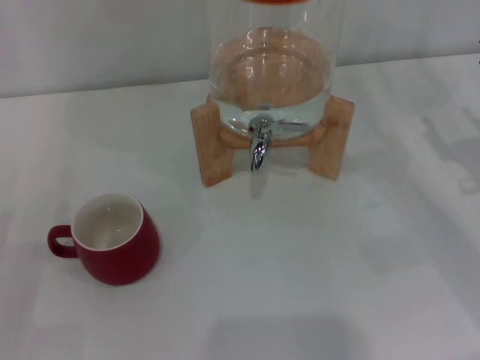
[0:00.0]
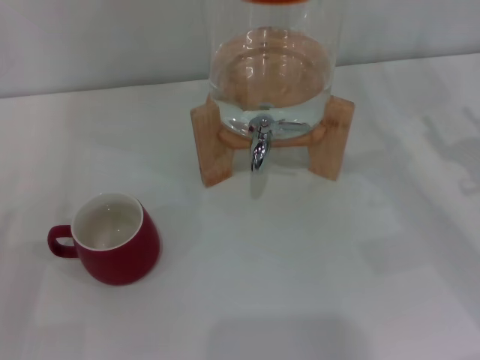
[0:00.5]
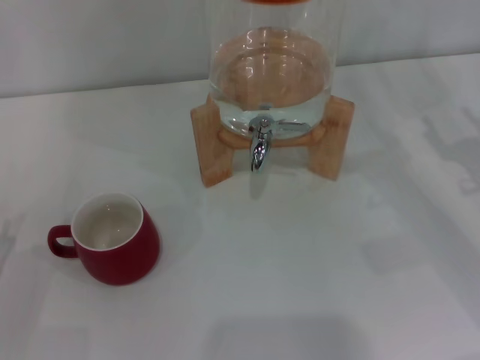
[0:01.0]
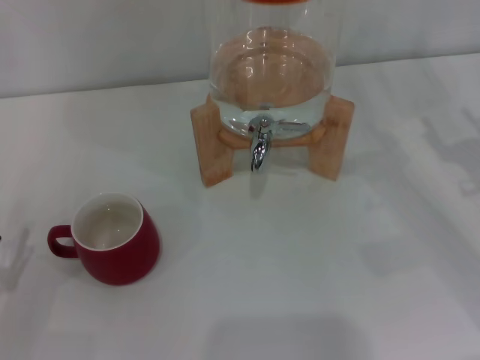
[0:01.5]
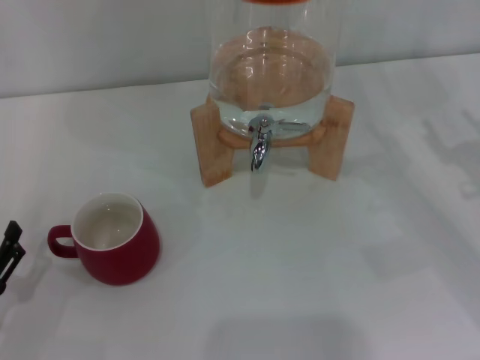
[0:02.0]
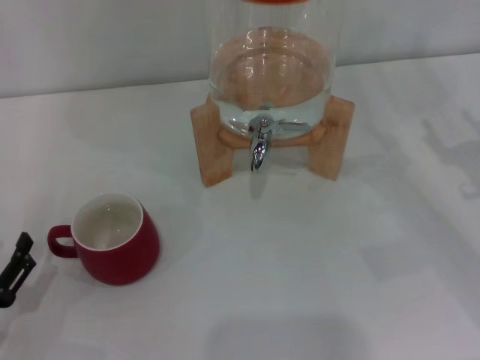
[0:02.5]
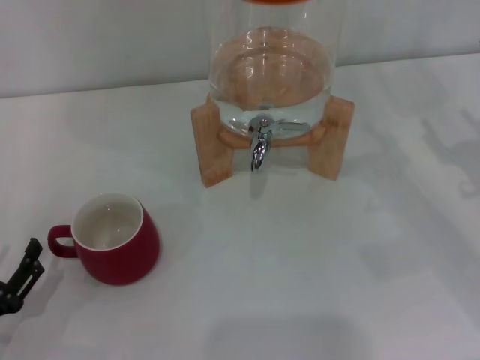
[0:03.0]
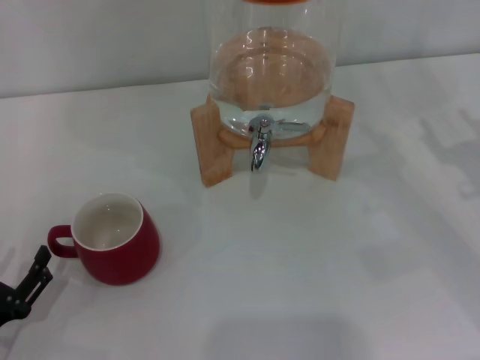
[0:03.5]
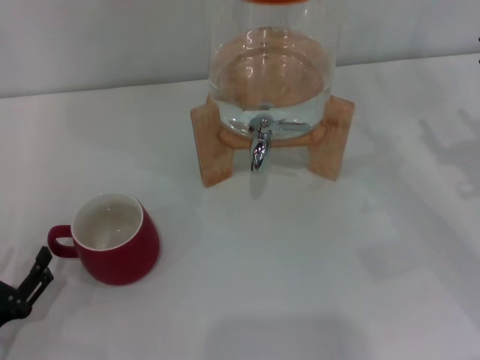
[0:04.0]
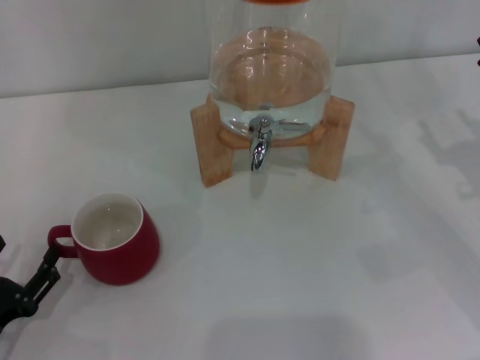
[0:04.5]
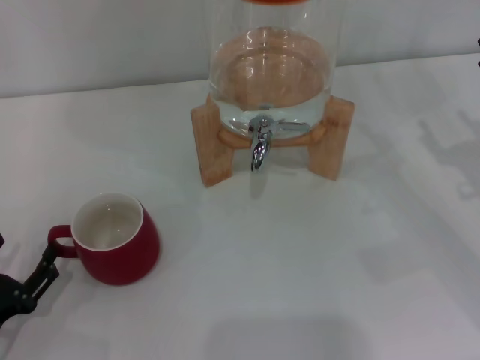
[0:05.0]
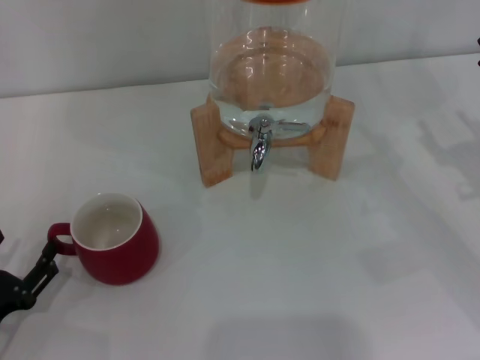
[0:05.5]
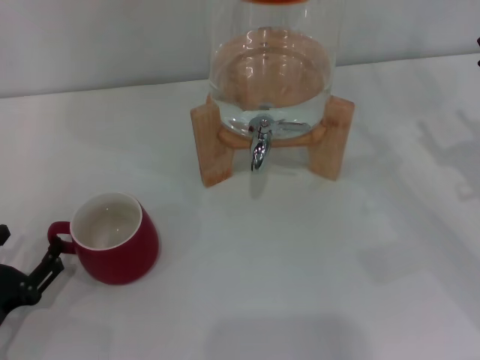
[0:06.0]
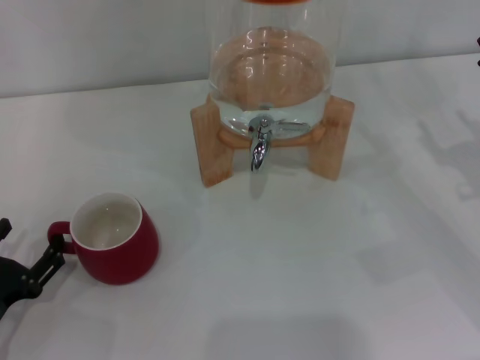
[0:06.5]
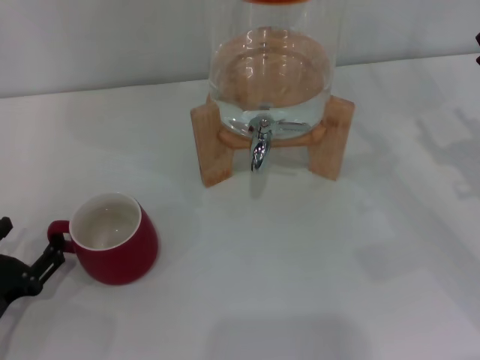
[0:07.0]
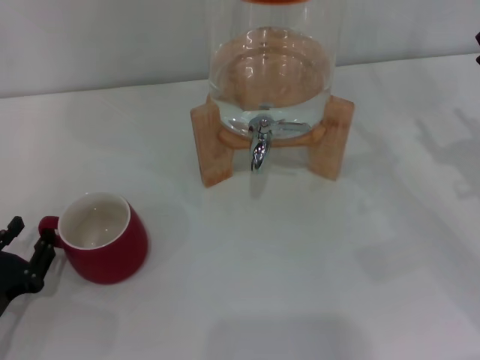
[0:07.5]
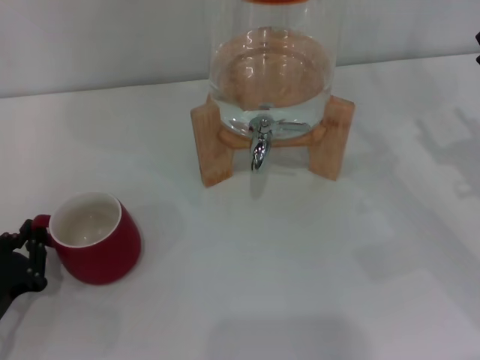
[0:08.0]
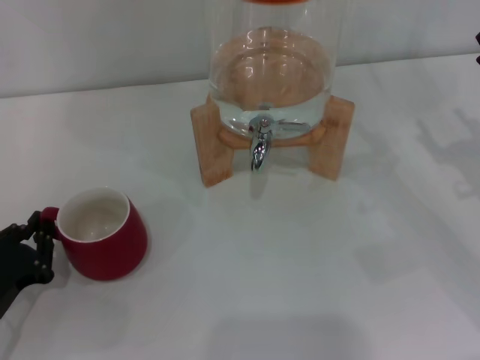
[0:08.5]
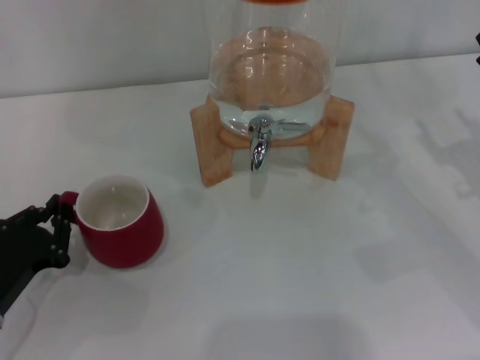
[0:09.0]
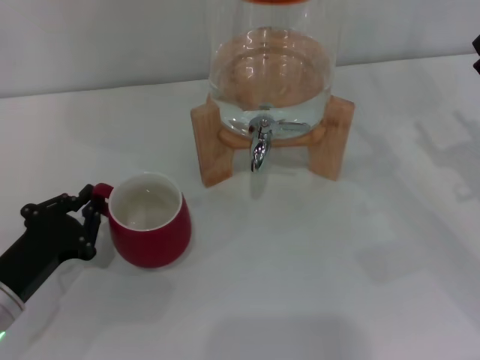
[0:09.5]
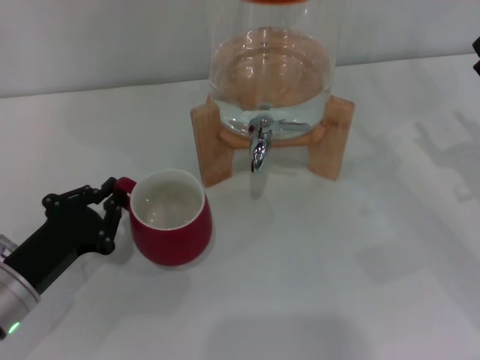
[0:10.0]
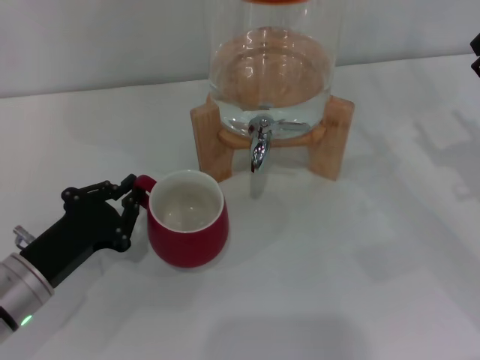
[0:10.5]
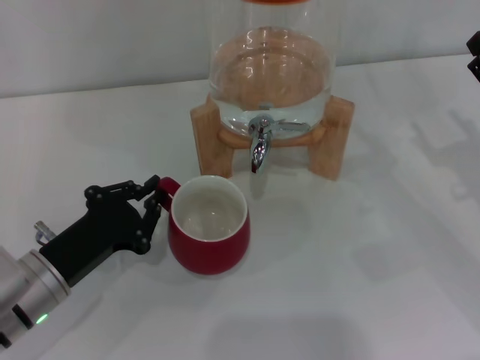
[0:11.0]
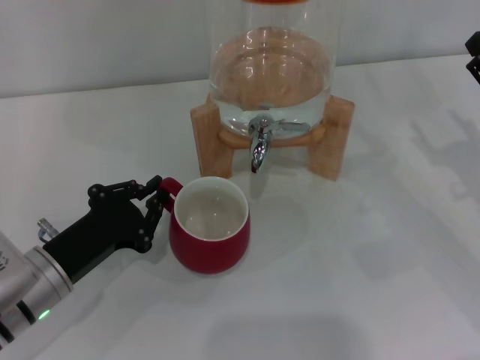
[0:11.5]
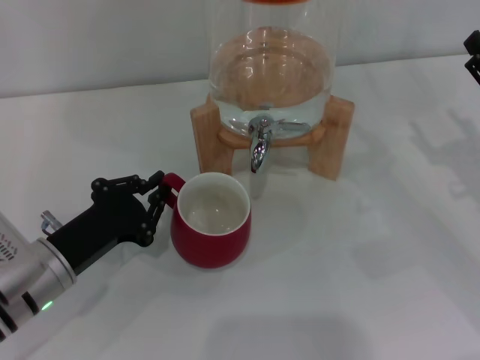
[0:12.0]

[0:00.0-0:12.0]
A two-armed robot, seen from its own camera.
Task of the whole recording: the left gripper pick up the red cup and place it horizontally under the faucet, the right gripper turn on the faucet to fill the cup, and then turn off the faucet.
0:02.0 to 0:06.0: The grippers stay close to where they were, moving slightly.
0:06.0 to 0:08.0: The left gripper closes.
0:08.0 to 0:10.0: The left gripper shifts roughly 5 cm to the right.
0:10.0 to 0:12.0: The grippers stay close to where they were, moving slightly.

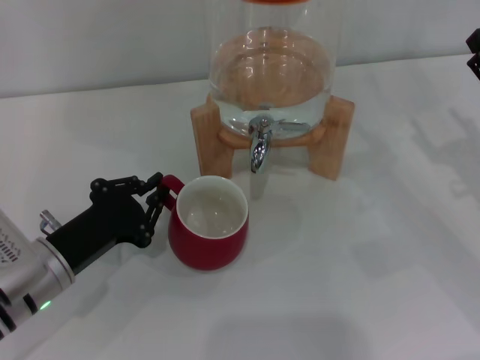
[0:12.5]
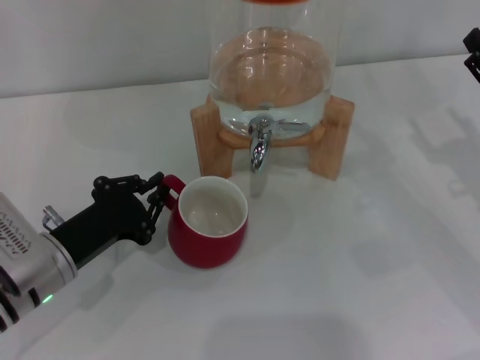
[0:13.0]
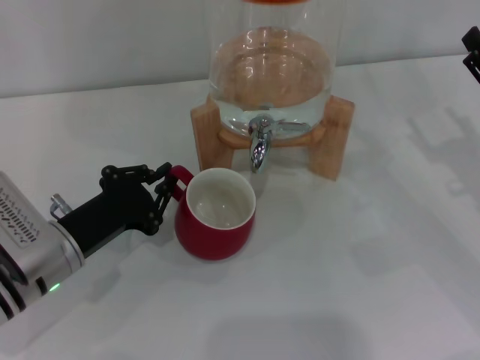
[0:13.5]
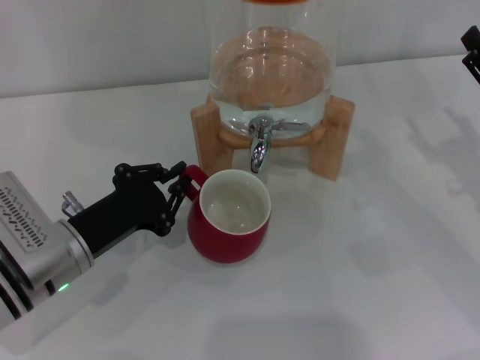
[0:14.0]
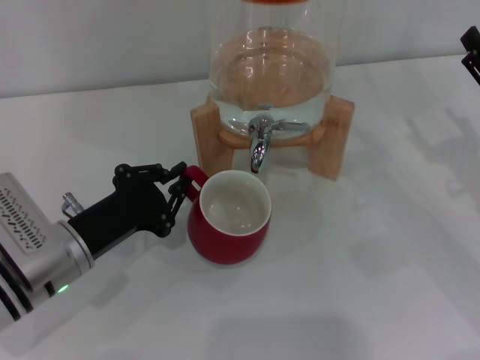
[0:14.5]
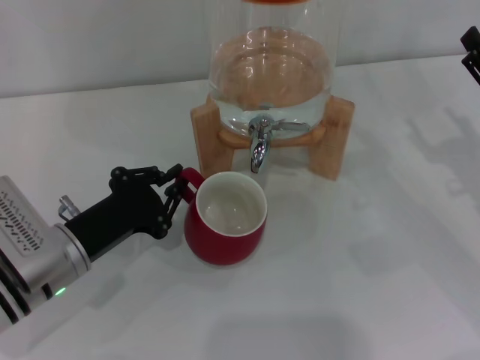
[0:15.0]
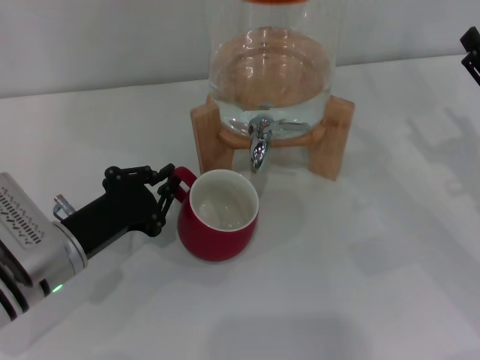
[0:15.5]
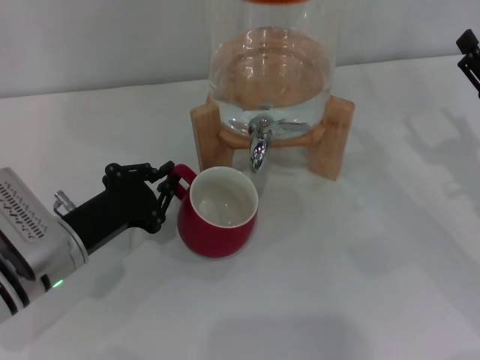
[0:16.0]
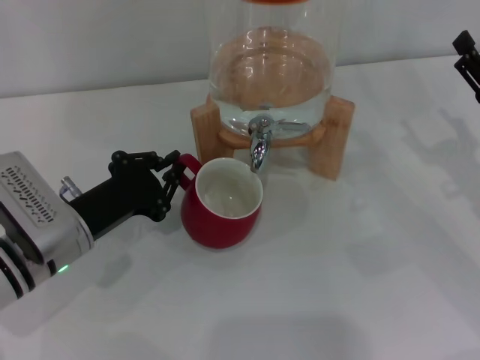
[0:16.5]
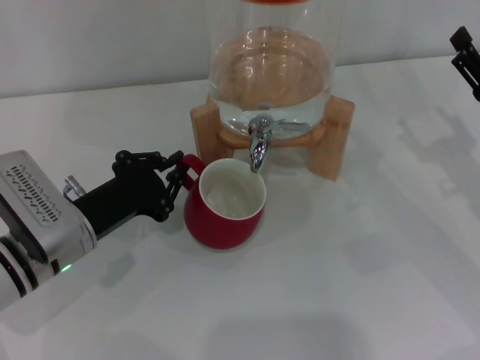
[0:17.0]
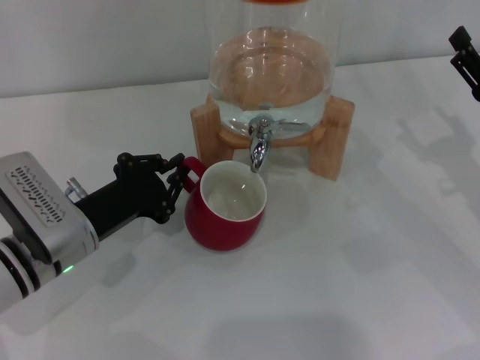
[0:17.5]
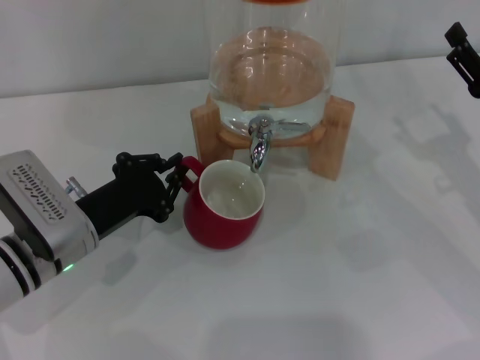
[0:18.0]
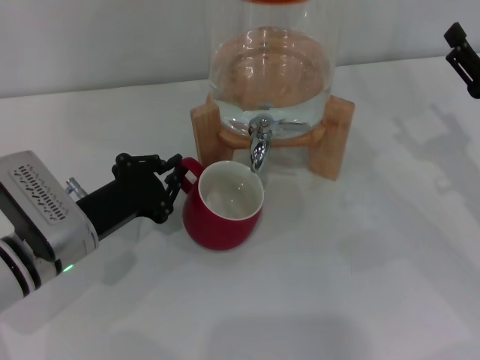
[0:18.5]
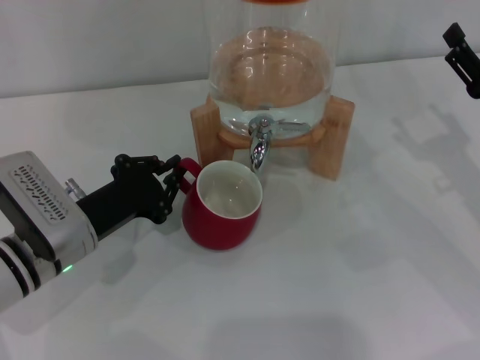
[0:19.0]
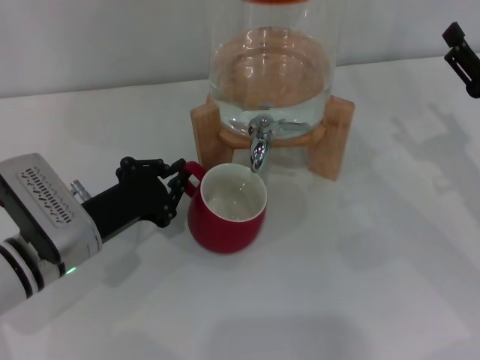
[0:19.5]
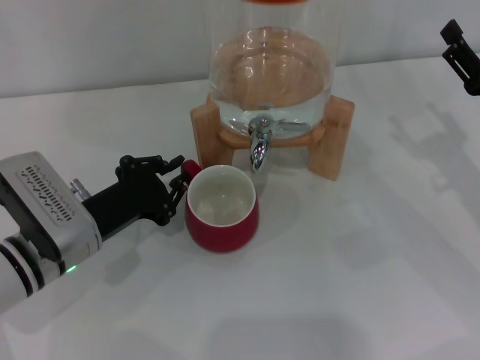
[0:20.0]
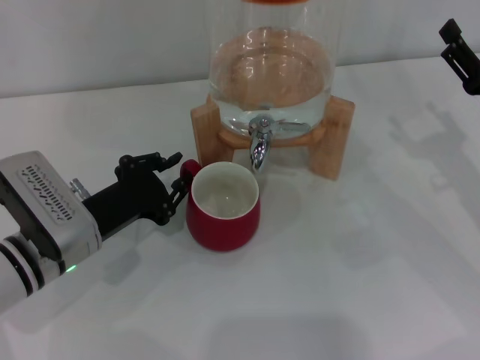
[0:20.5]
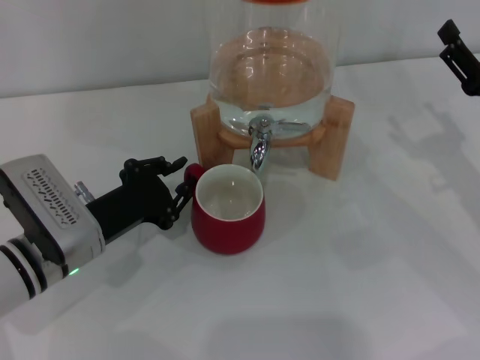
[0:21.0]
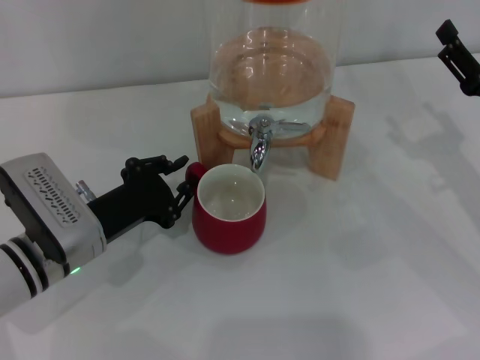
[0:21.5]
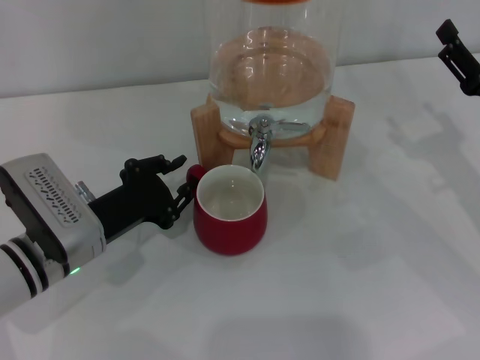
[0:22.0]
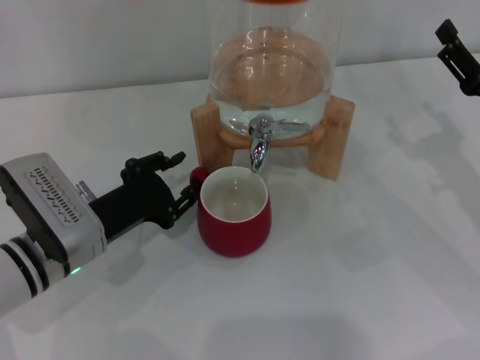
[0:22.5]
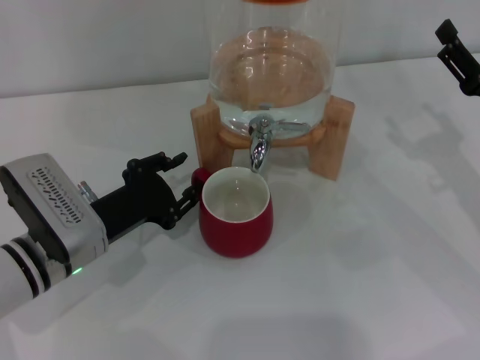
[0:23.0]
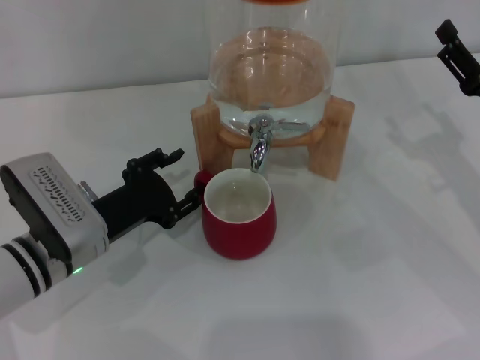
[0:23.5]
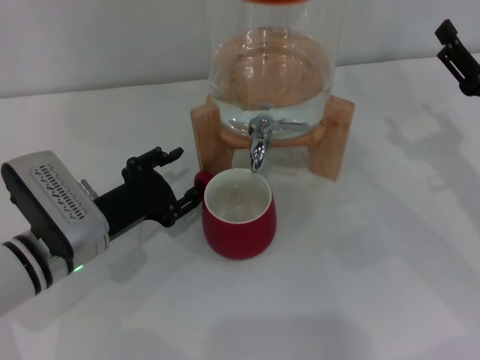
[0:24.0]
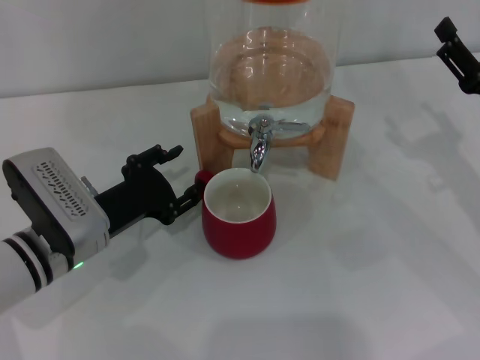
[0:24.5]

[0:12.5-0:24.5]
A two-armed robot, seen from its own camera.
Task of the whole recording: the left gripper pick up the red cup and place it horizontally under the faucet, the right gripper turn on the faucet to fill the cup, and then turn off the faucet.
0:12.5 to 0:16.5: The grippers move only a little.
0:16.5 to 0:18.5: The two grippers keep their place.
0:18.5 to 0:22.5: Both grippers stay about where they are.
0:22.5 to 0:24.5: The left gripper opens.

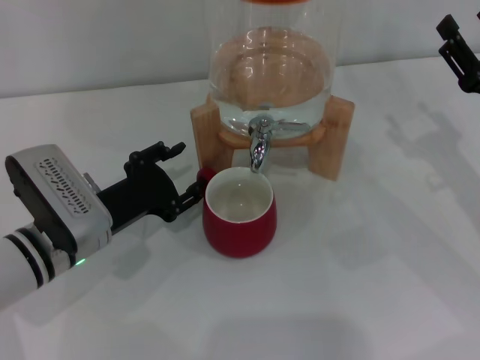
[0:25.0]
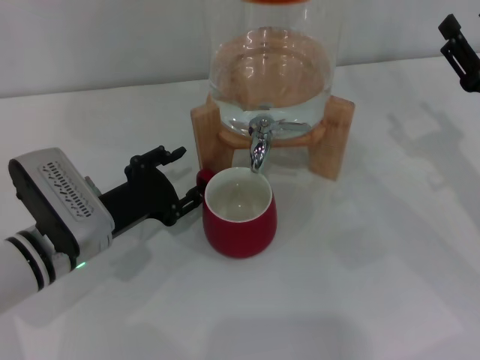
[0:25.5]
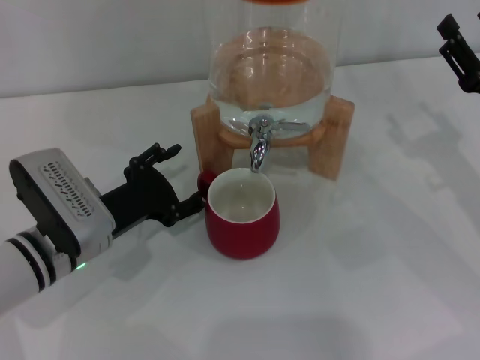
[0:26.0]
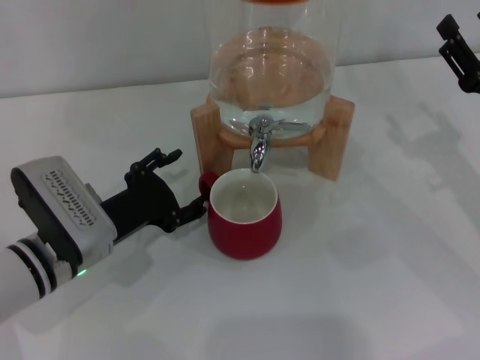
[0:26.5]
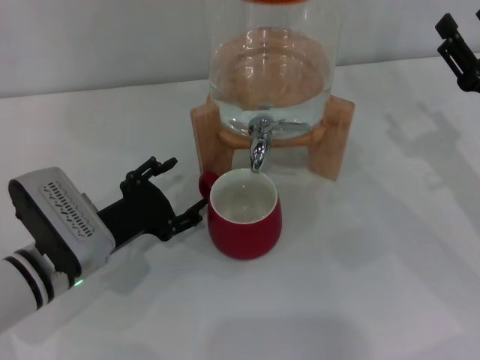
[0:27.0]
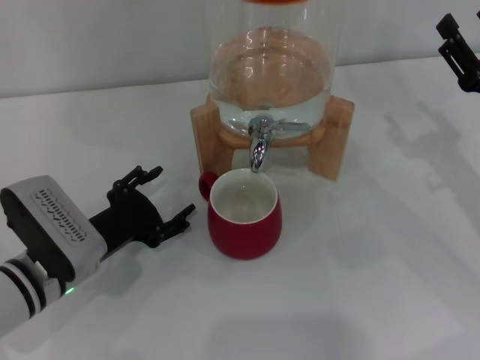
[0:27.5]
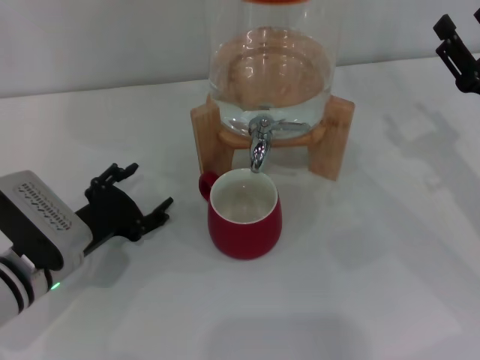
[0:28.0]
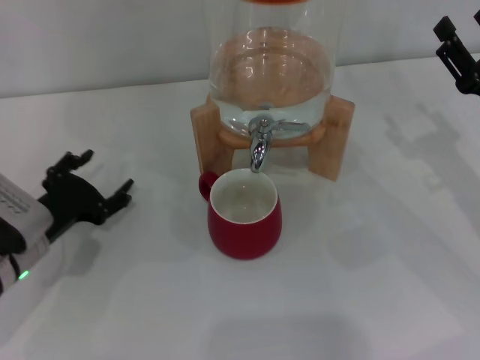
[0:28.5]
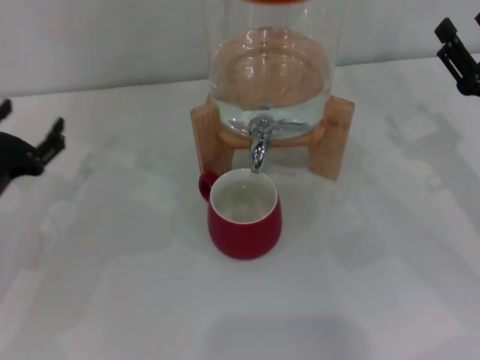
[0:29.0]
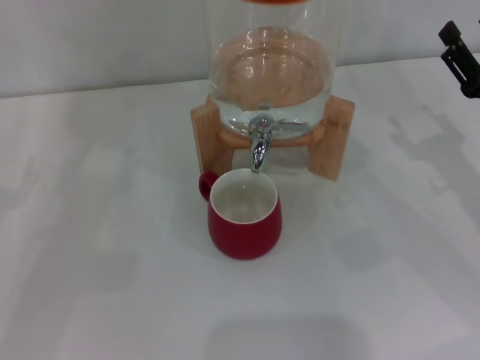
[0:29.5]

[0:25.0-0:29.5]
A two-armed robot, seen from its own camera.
Task of the whole recording: the left gripper pick up the red cup and place it horizontally under the faucet, the right gripper turn on the faucet to fill the cup, and then turn off the faucet.
Step, 0:25.0 to 0:27.0: Move the cup beneath the water dispenser nozzle with the left gripper.
0:25.0 to 0:27.0: The grippers move only a little.
0:27.0 to 0:29.5: The left gripper shifts approximately 15 cm to the left.
